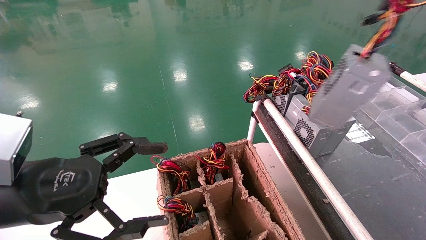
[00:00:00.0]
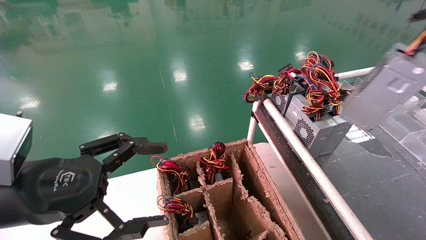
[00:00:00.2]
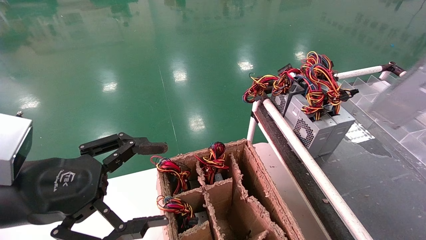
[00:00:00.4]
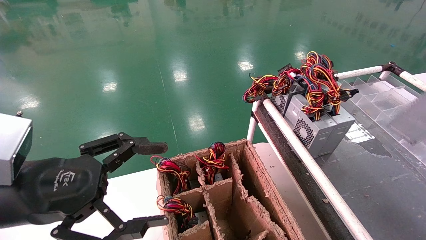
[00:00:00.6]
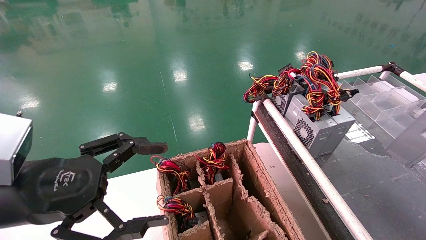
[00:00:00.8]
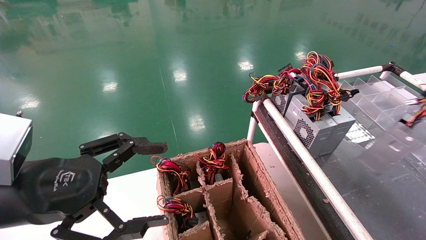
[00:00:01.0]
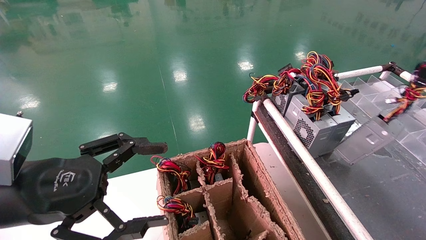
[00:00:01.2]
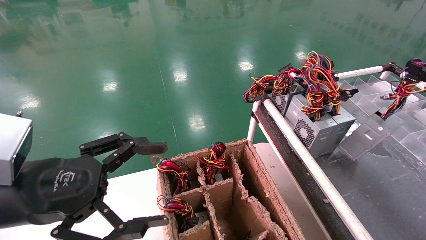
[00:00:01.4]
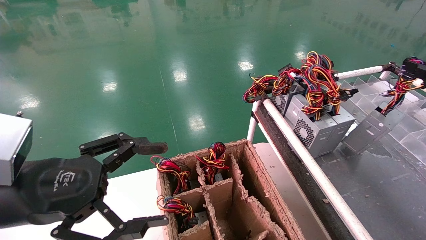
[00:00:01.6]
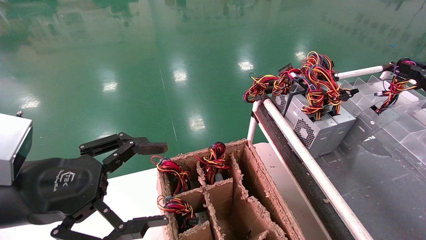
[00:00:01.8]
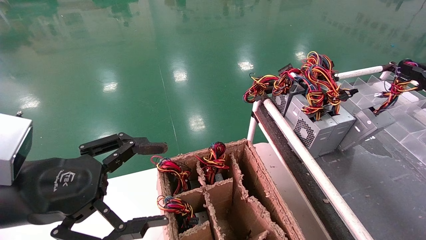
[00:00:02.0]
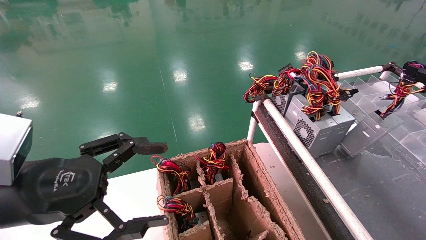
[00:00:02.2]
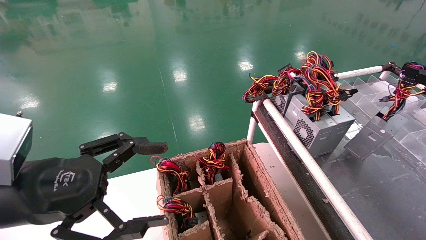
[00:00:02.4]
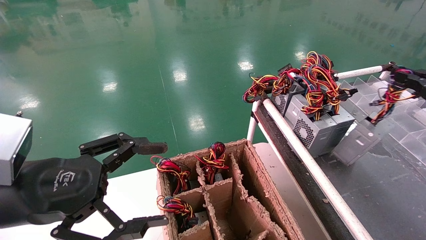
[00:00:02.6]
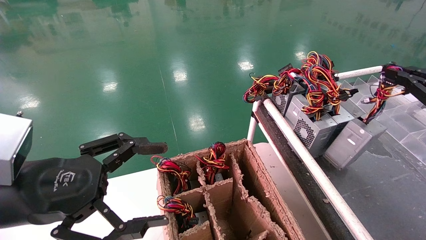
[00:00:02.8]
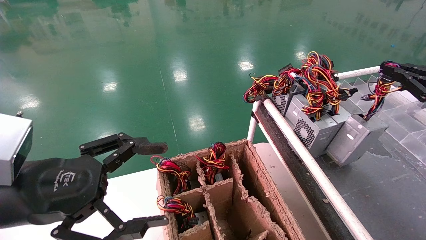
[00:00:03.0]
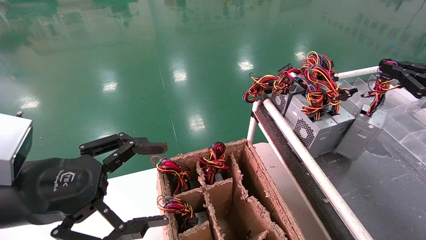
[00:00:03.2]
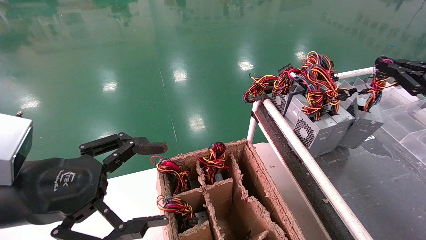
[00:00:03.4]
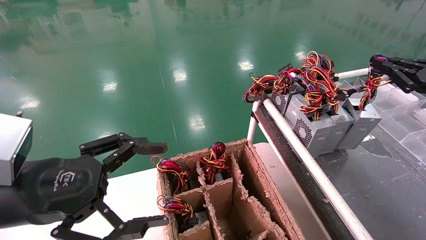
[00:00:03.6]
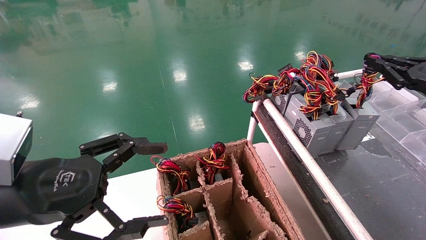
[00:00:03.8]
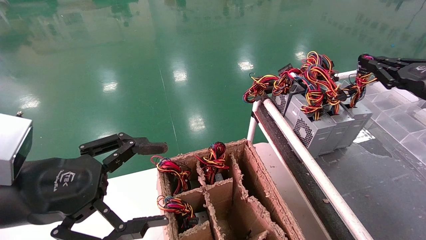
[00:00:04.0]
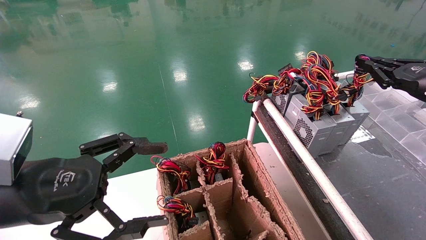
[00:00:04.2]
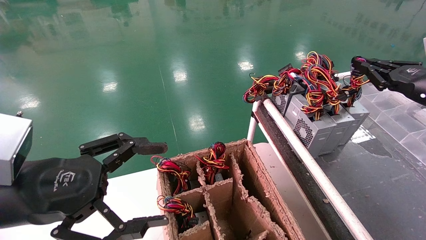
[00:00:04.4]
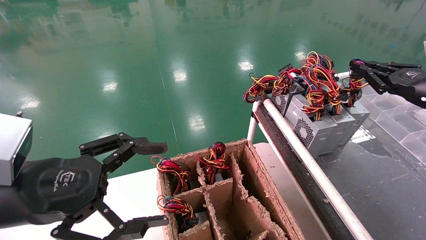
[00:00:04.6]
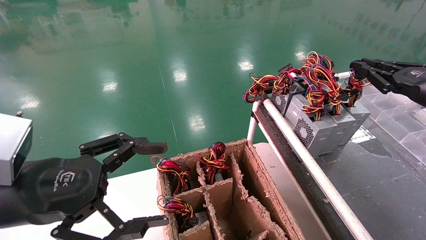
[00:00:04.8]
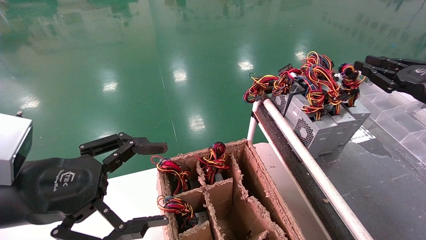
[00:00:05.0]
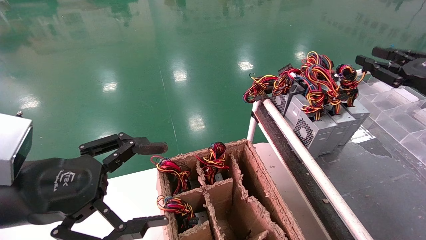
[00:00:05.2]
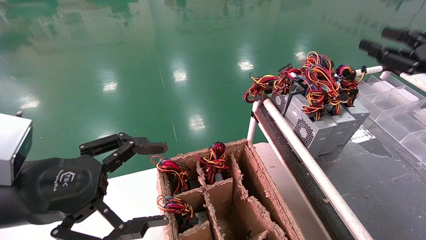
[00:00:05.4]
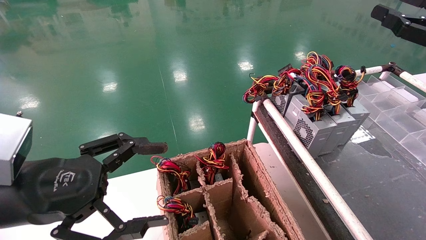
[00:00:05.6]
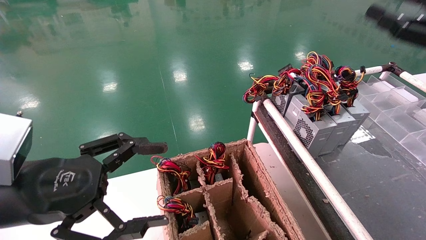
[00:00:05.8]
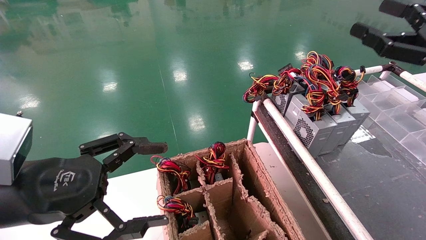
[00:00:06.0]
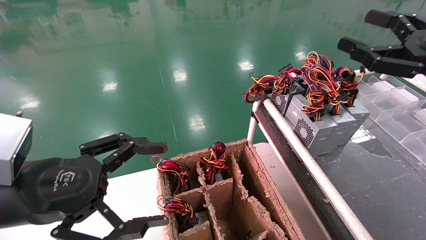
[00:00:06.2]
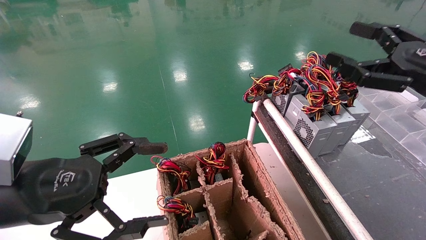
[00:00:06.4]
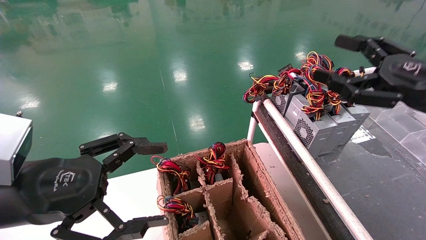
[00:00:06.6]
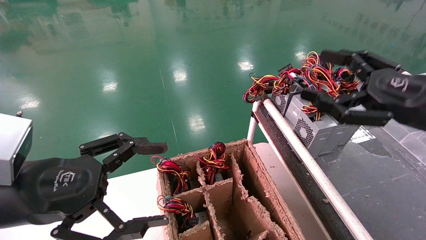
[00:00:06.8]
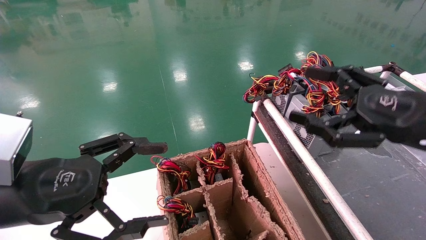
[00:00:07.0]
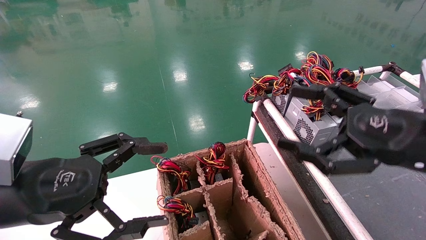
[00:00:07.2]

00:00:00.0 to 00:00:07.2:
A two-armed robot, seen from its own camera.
Step, 00:00:00.0 to 00:00:05.0: Place the power supply on the operating table.
00:00:00.0 to 00:00:01.4: The right gripper travels downward, to the right and forward by some 15 cm.
00:00:01.4 to 00:00:02.8: The grippers move only a little.
00:00:02.8 to 00:00:04.4: The right gripper moves forward, roughly 5 cm.
00:00:04.4 to 00:00:05.8: The right gripper shifts some 10 cm backward and upward, and opens.
00:00:05.8 to 00:00:07.2: The right gripper heads to the left, downward and backward, covering some 15 cm.

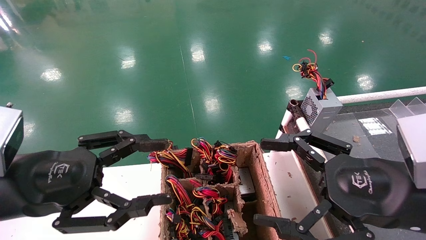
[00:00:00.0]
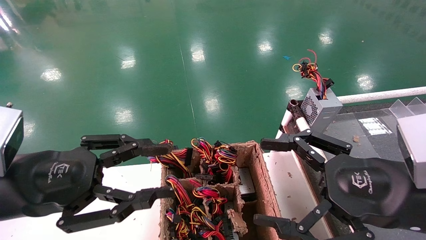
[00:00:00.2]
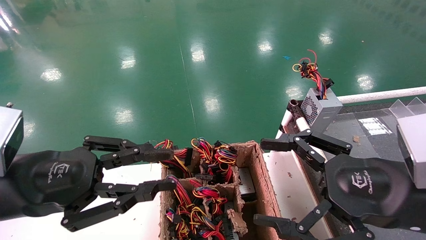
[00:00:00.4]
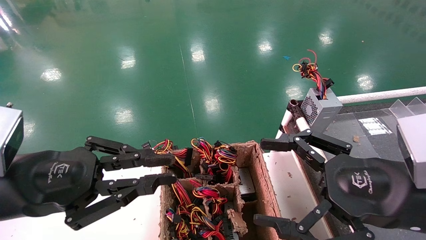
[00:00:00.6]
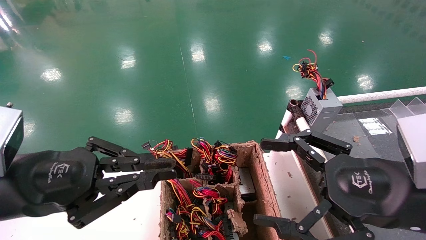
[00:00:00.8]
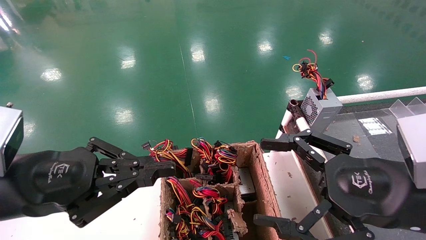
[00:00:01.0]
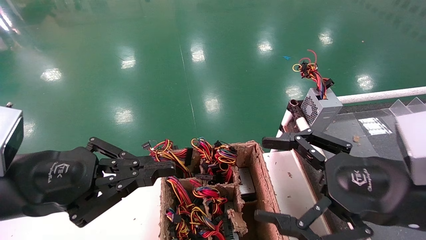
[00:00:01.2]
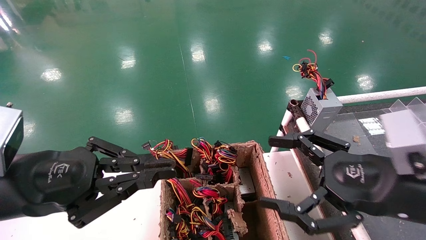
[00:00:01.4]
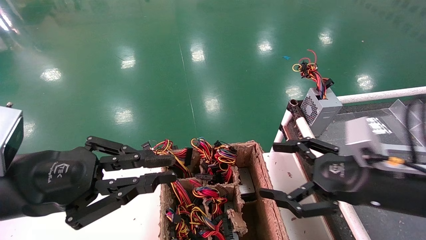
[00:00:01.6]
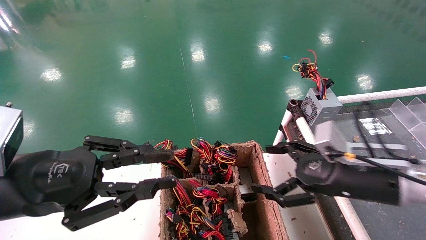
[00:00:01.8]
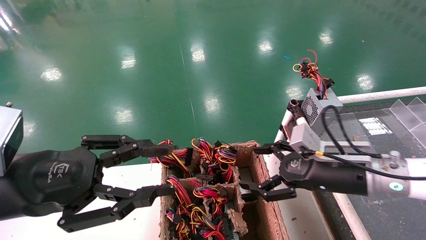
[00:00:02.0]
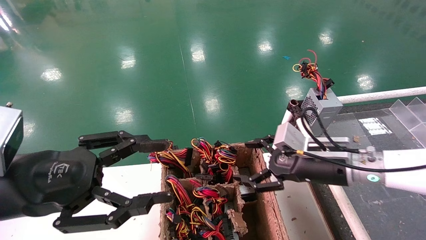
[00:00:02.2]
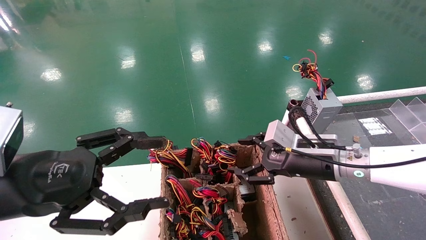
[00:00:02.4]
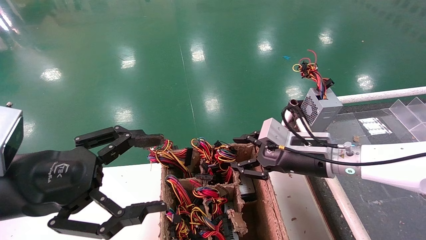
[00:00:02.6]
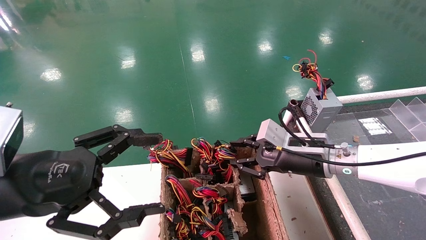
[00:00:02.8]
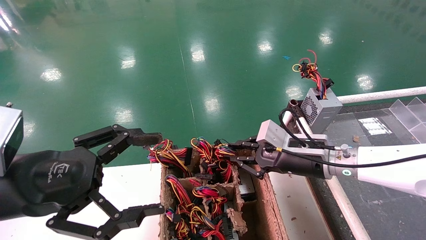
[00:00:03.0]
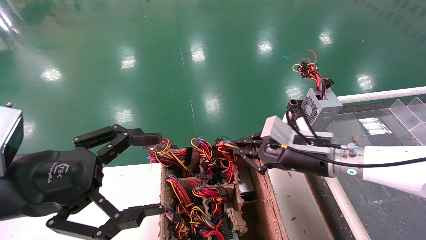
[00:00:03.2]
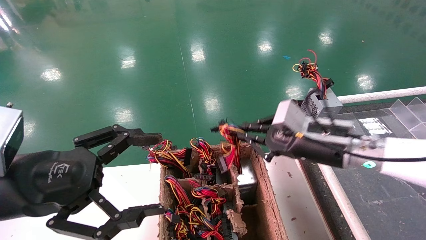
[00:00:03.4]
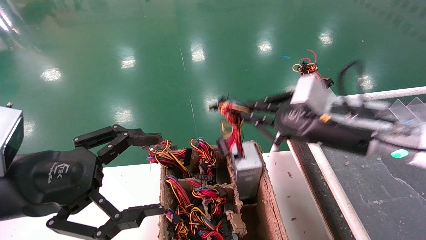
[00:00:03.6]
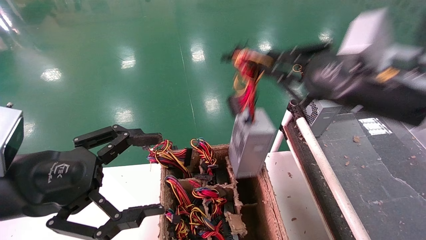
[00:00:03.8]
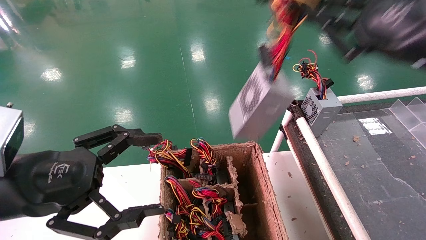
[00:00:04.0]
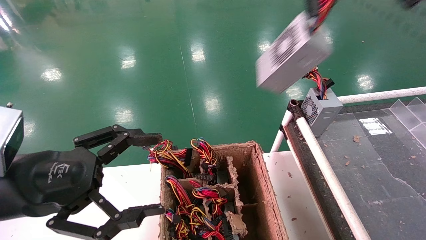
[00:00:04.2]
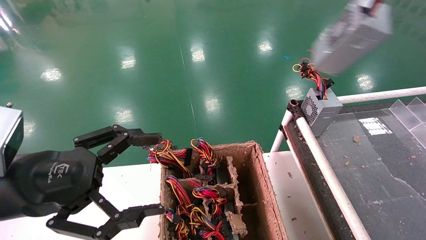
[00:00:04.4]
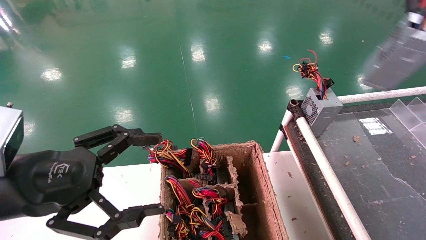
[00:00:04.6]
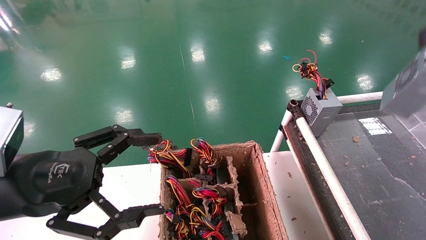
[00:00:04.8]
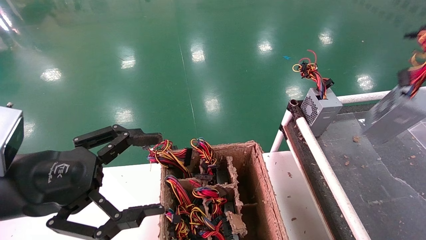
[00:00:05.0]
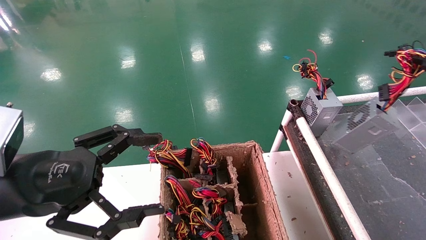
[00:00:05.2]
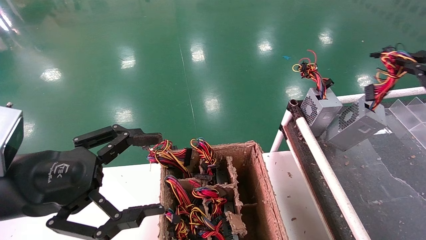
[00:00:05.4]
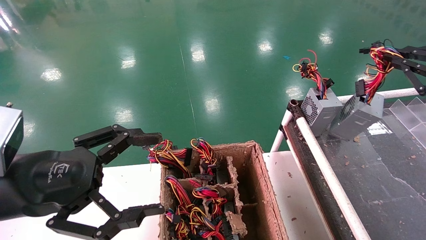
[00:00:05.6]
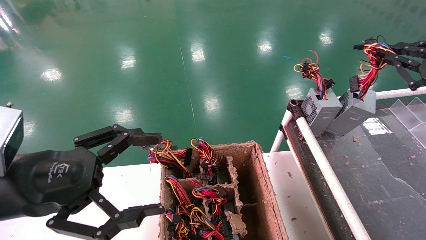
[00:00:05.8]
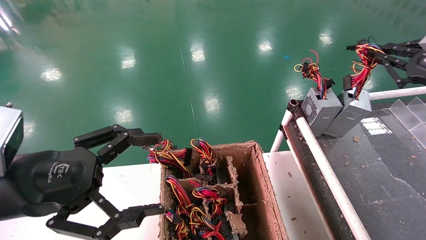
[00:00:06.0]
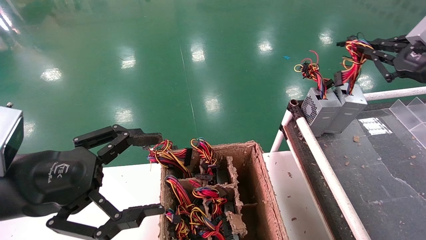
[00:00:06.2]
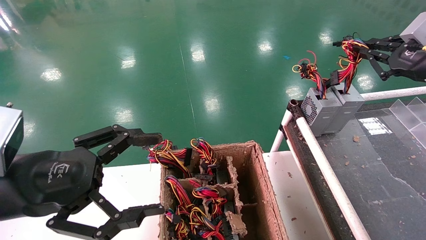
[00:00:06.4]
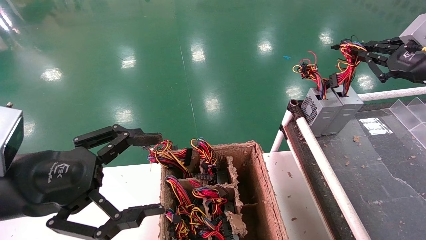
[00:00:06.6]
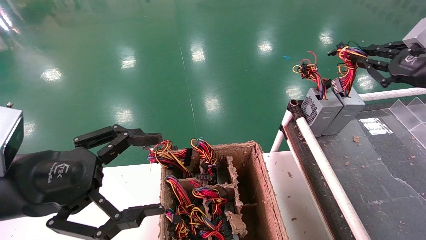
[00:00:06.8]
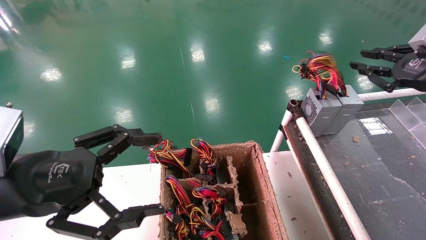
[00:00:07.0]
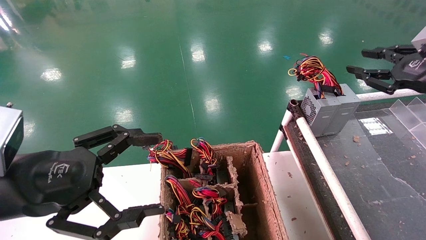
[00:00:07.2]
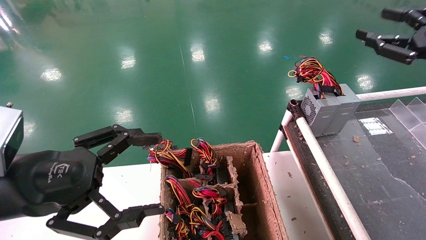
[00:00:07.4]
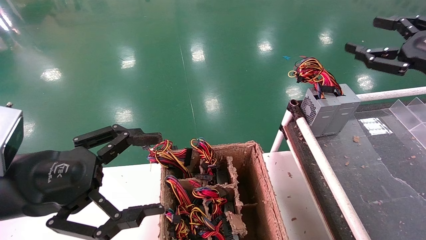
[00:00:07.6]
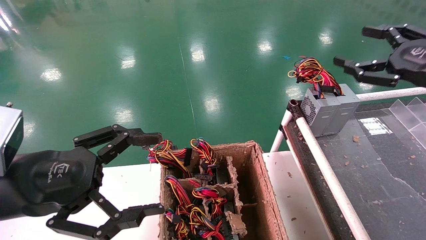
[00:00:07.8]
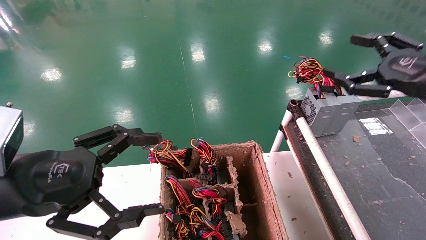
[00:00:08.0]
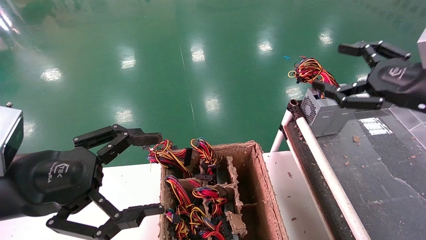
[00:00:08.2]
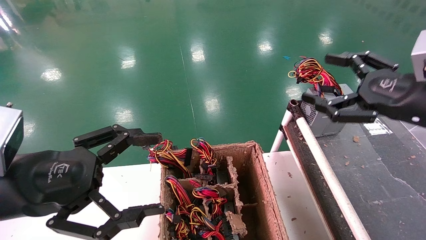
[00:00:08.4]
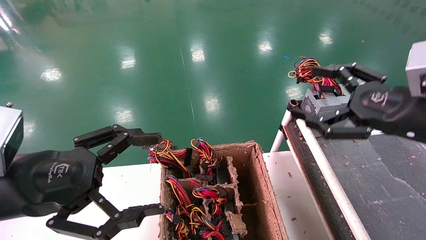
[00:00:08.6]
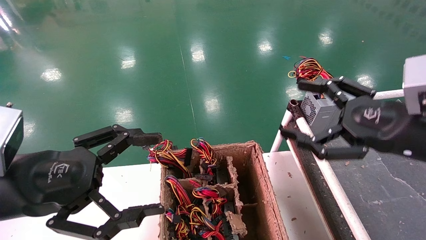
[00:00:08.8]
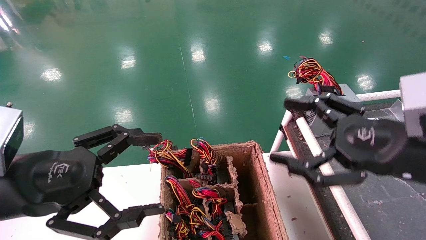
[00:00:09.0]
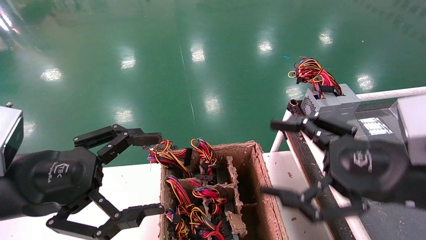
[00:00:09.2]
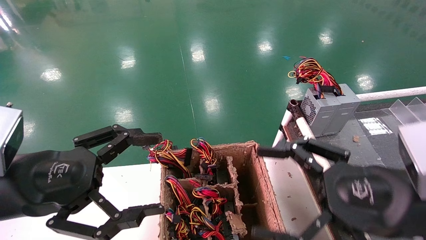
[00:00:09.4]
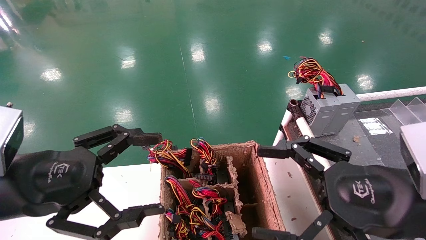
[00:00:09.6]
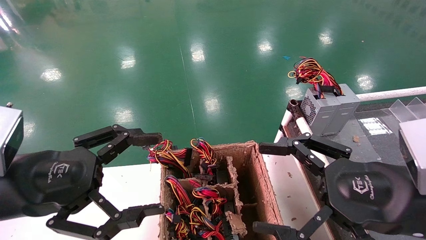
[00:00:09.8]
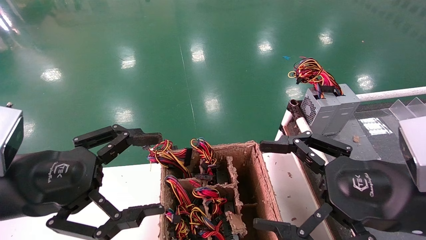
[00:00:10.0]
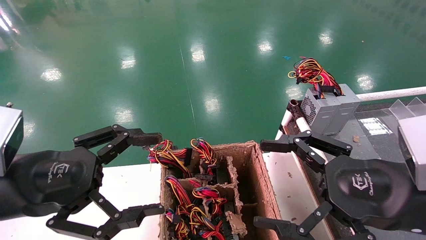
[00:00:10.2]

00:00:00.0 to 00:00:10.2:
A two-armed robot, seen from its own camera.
Step, 00:00:01.4 to 00:00:03.6: Grab and lift the power supply from the large box.
Step, 00:00:03.8 to 00:00:07.0: Place the power supply on the operating table.
00:00:00.0 to 00:00:01.4: The left gripper closes.
00:00:01.4 to 00:00:03.0: The right gripper shifts some 15 cm forward and to the left, and closes. The left gripper opens.
00:00:03.0 to 00:00:04.4: The right gripper moves upward, to the right and backward, roughly 35 cm.
00:00:04.4 to 00:00:05.8: The right gripper heads downward and forward, covering approximately 15 cm.
00:00:05.8 to 00:00:07.2: The grippers stay close to where they were, moving slightly.
00:00:07.2 to 00:00:08.8: The right gripper moves to the left, backward and downward, approximately 15 cm, and opens its fingers.
00:00:08.8 to 00:00:10.2: The right gripper travels backward by roughly 5 cm.
